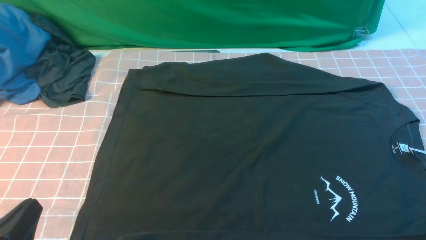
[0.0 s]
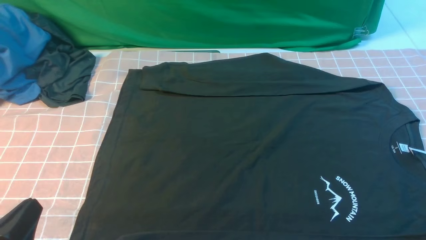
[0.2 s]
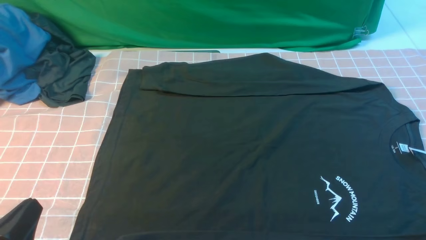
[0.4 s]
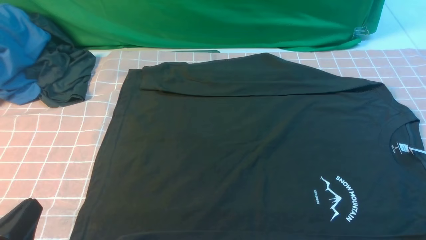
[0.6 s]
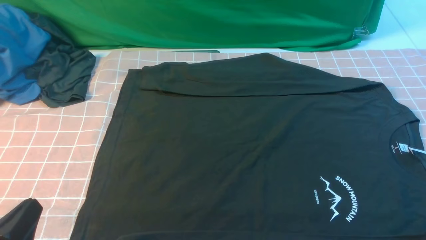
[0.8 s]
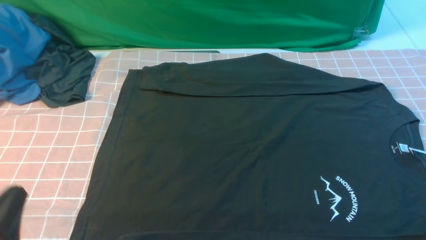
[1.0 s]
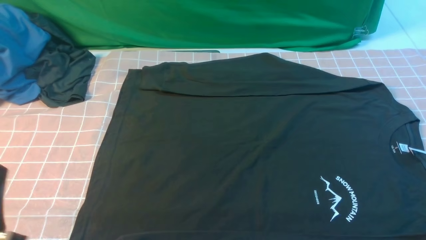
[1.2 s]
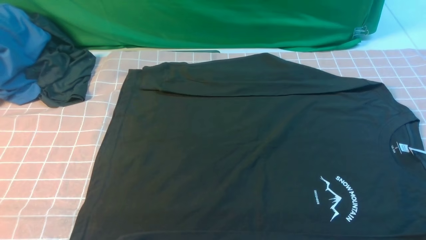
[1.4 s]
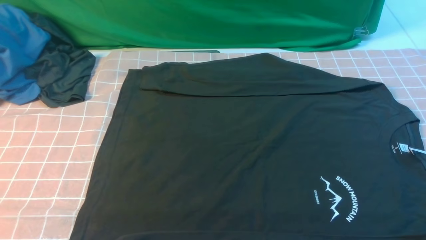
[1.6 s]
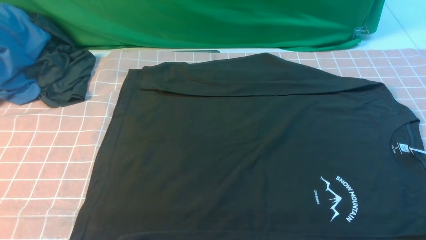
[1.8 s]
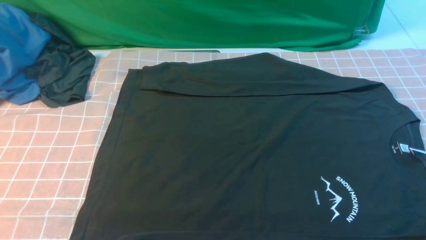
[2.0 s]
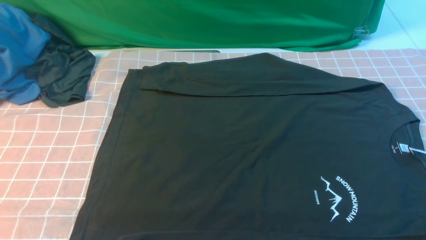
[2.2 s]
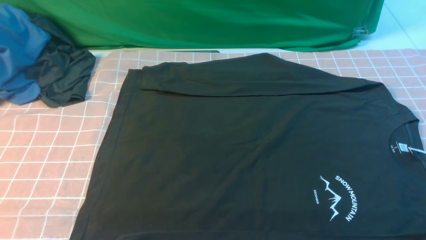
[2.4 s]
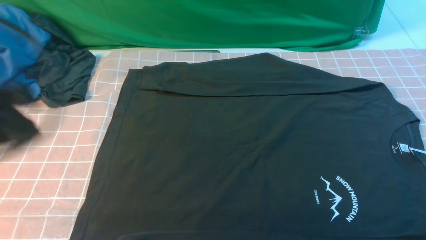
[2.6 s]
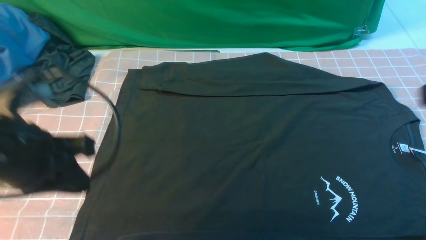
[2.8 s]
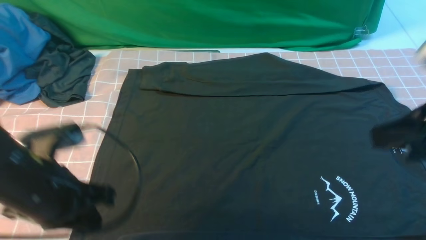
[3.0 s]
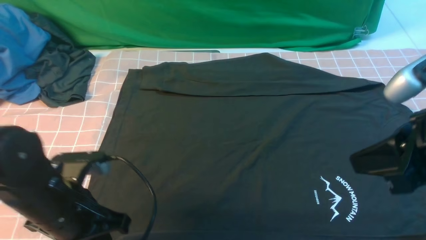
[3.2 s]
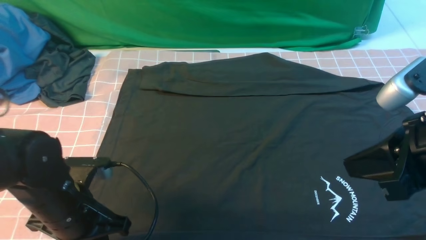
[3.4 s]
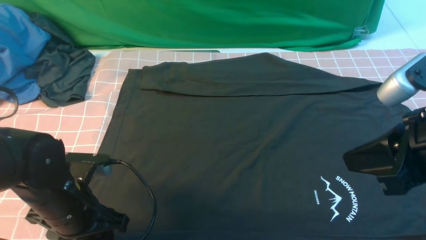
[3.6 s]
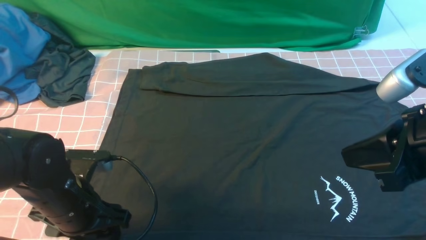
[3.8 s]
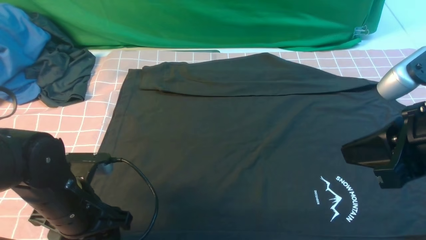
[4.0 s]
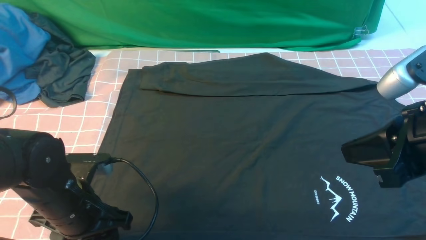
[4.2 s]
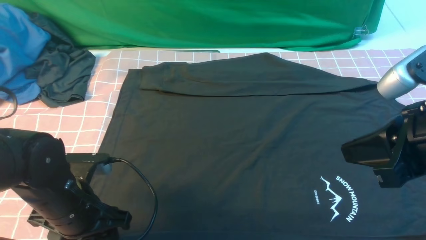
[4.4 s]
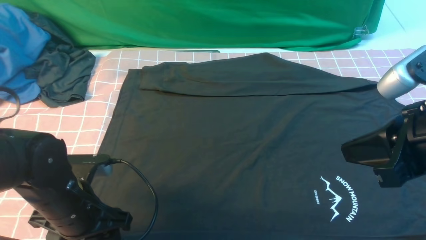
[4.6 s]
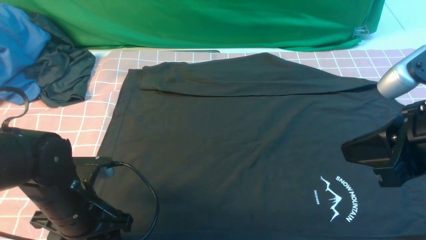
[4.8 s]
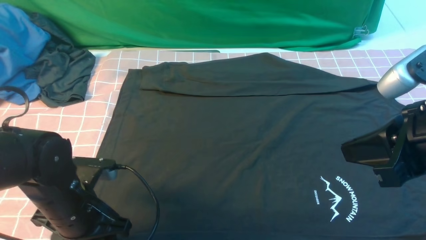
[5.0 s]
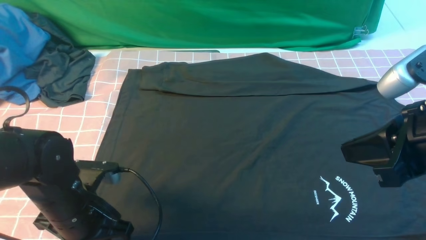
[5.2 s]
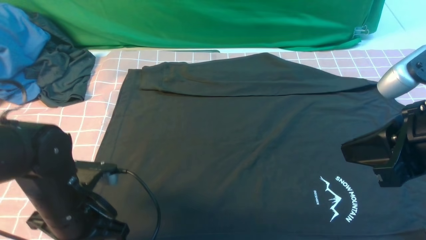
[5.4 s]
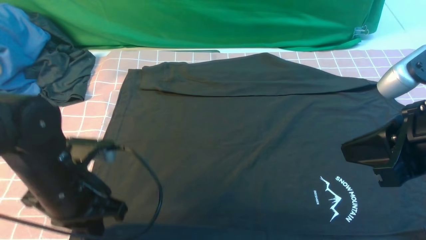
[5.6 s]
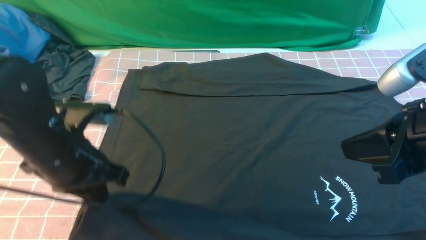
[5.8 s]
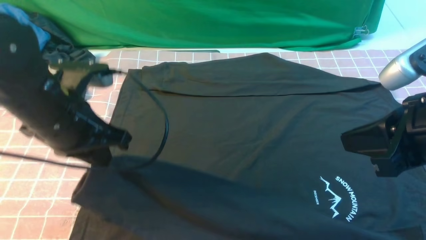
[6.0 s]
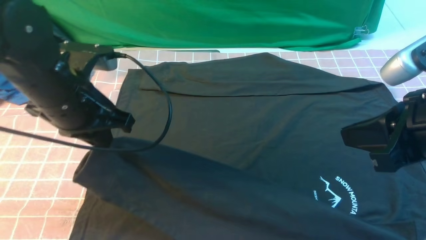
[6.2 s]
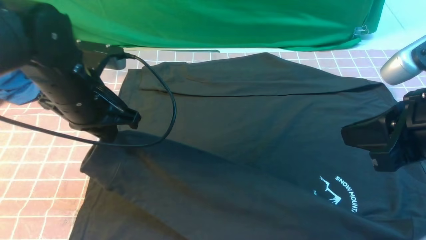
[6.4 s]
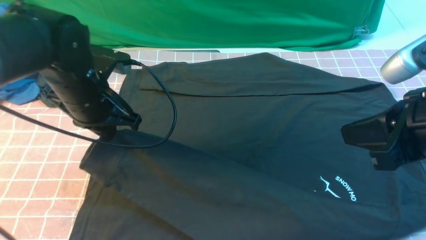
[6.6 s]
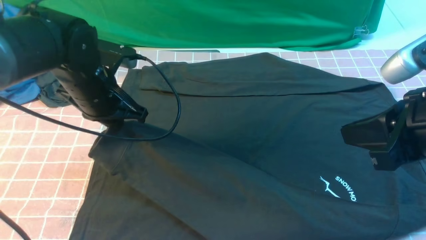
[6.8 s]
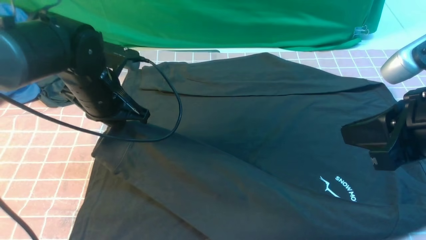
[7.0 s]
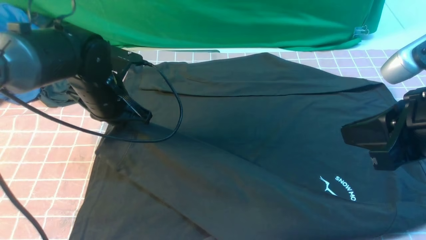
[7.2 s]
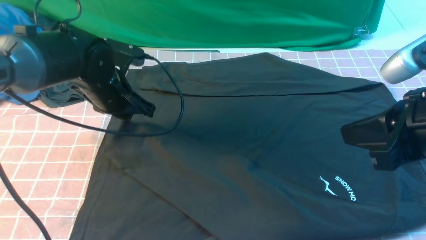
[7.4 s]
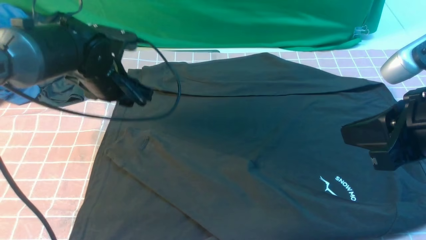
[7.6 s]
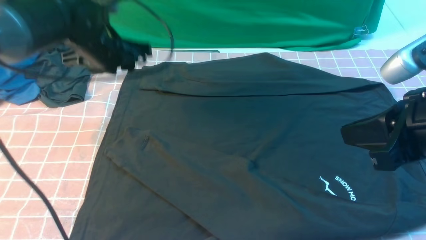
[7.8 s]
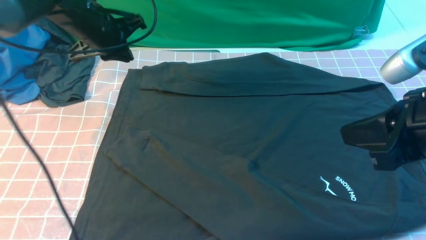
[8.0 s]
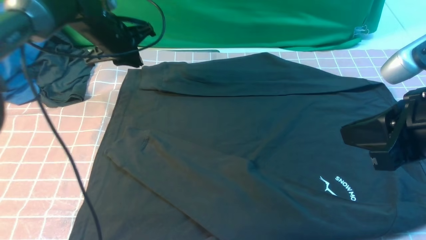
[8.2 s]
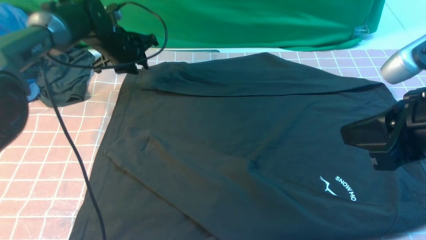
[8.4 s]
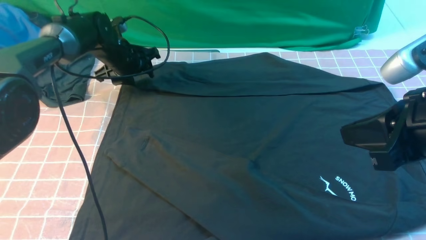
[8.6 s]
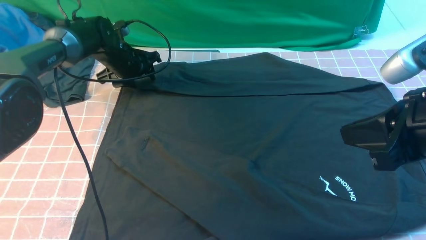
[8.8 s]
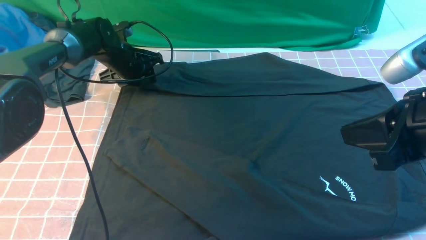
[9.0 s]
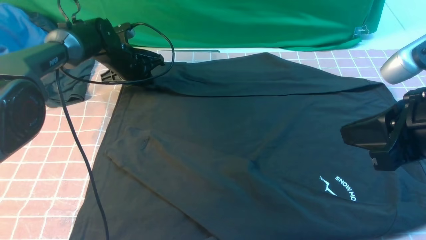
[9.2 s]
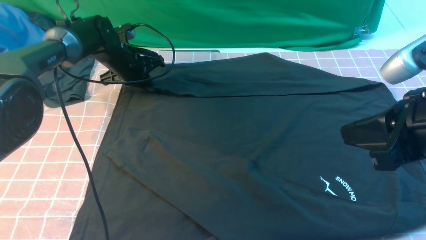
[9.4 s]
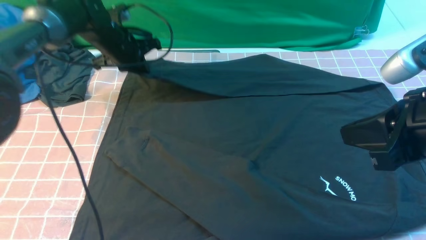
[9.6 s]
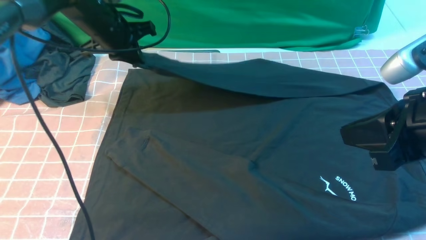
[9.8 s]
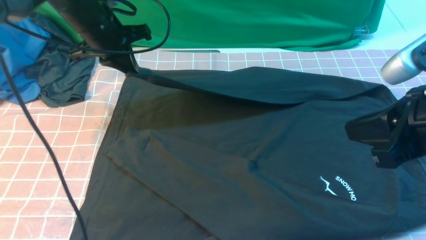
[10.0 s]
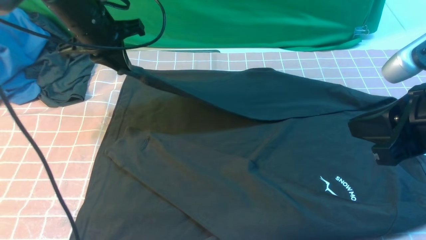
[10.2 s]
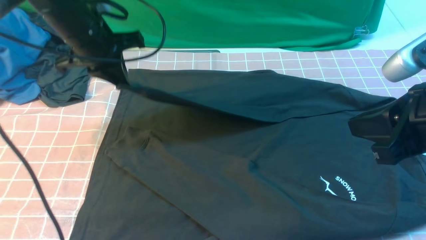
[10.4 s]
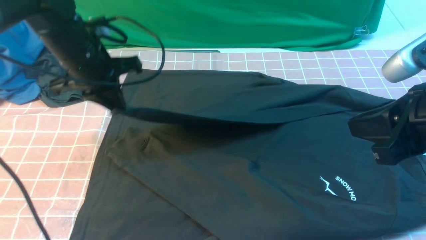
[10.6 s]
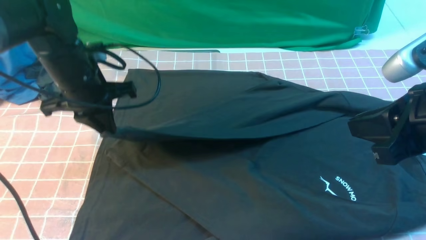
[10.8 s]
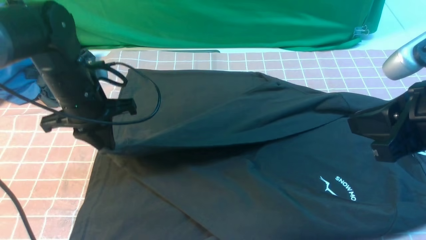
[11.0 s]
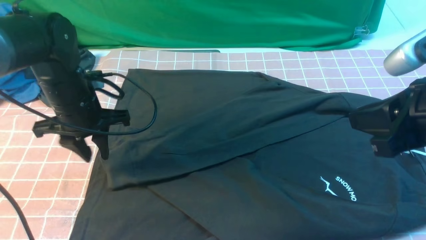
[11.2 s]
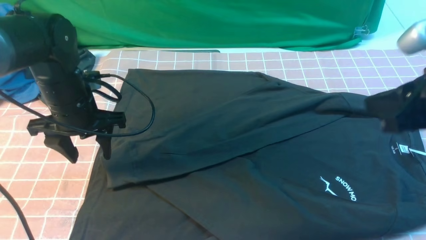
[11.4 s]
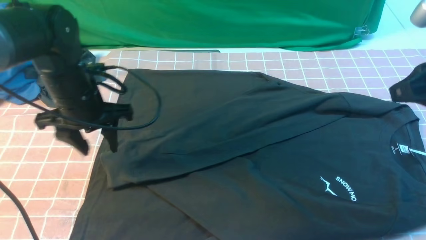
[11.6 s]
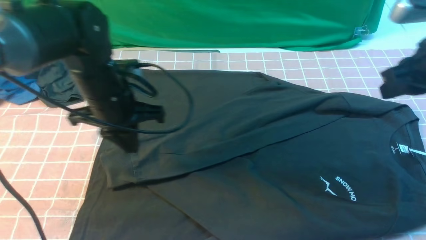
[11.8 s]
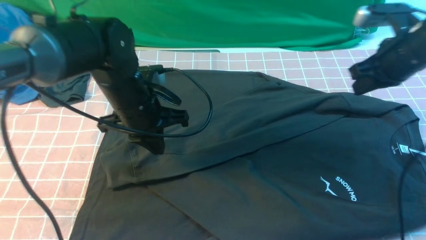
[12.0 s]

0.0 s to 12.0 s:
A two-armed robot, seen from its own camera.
Step, 0.0 to 5.6 s: use the left arm to clamp the cuff closest to it.
Step, 5.8 to 7.6 s: use the left arm to drag and place the cuff at the centered position on the left edge of the fabric.
Step, 7.8 to 11.4 s: use the left arm to drag and drop the cuff onto the cuff closest to the left arm.
0.0 to 1.6 s: The left gripper is displaced upward by about 5 cm.
1.6 to 3.0 s: The left gripper travels forward by approximately 15 cm. Meanwhile the right gripper goes approximately 20 cm upward, forward and to the left, and closes its fingers.
3.0 to 4.4 s: The left gripper is displaced downward by approximately 5 cm, and opens up.
4.4 to 6.0 s: The left gripper moves upward and forward, roughly 15 cm, and closes up.
6.0 to 7.6 s: The left gripper heads forward, covering roughly 15 cm, and opens.
7.6 to 9.0 s: The left gripper goes approximately 15 cm forward and downward, and closes, then opens again.
9.0 to 10.4 s: The left gripper travels upward and backward by approximately 20 cm, and closes up.
10.4 to 12.0 s: The right gripper shifts approximately 20 cm forward, while the left gripper is displaced downward, to the right and backward by approximately 10 cm, and opens, then closes again.

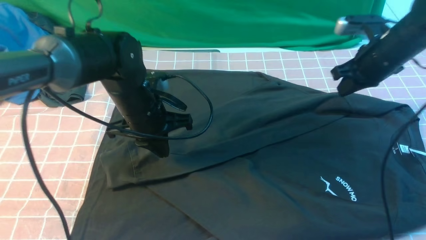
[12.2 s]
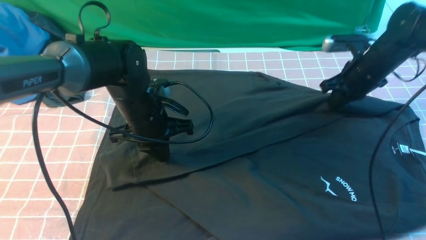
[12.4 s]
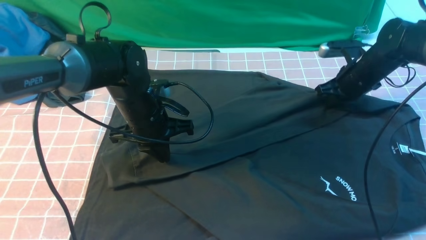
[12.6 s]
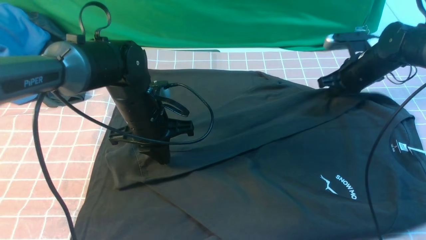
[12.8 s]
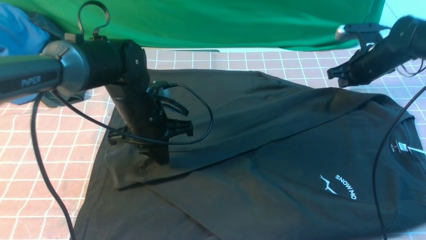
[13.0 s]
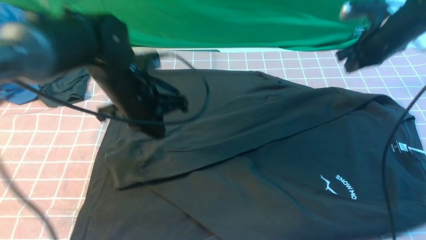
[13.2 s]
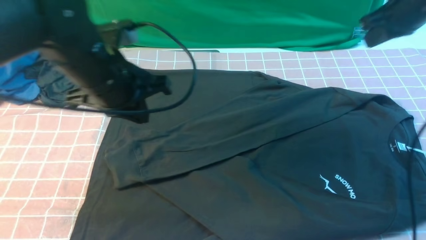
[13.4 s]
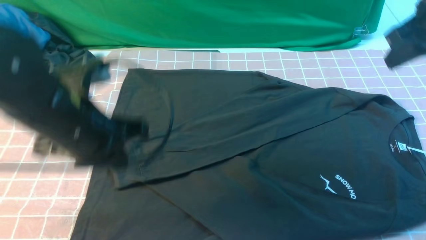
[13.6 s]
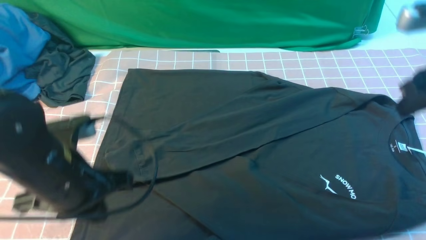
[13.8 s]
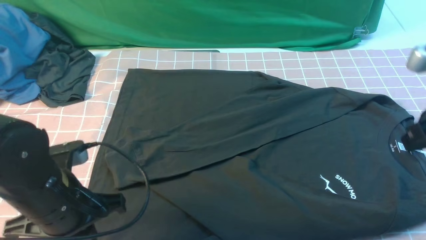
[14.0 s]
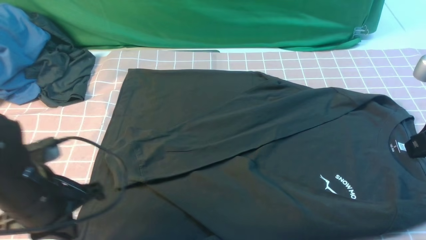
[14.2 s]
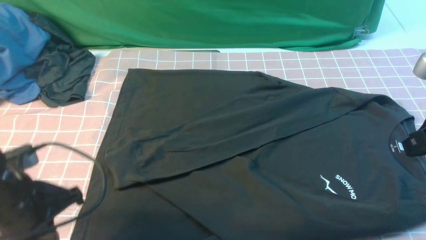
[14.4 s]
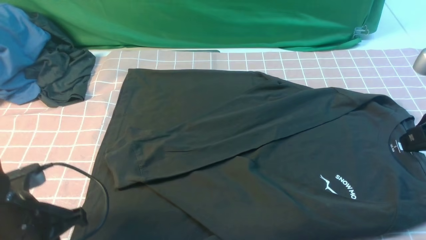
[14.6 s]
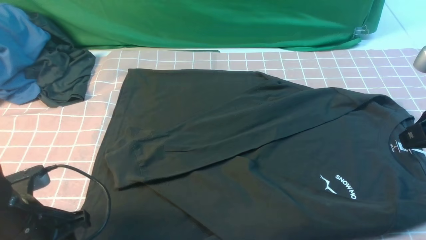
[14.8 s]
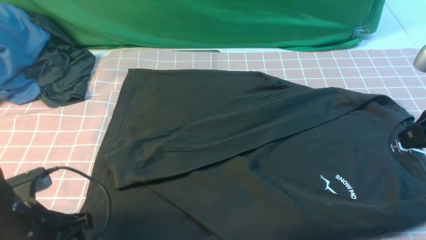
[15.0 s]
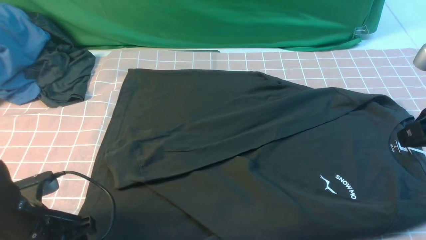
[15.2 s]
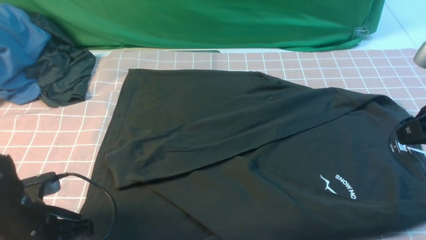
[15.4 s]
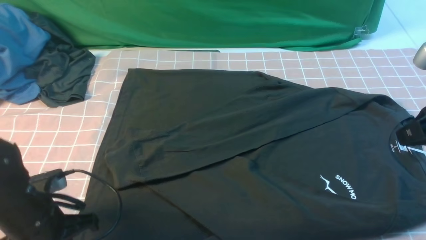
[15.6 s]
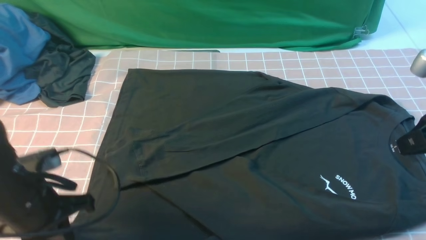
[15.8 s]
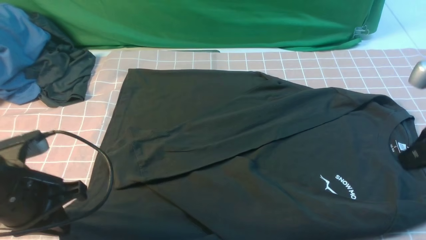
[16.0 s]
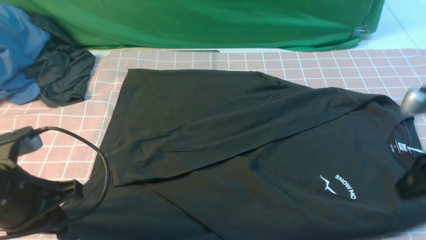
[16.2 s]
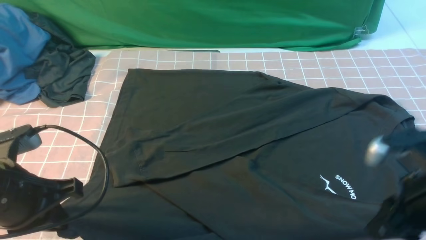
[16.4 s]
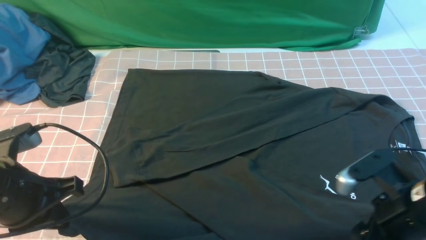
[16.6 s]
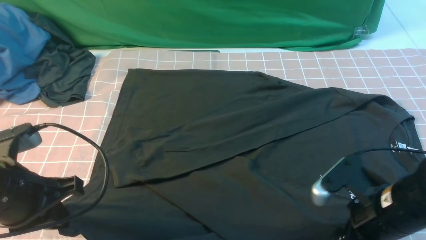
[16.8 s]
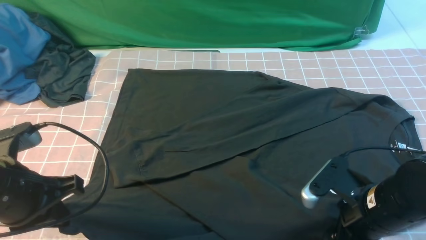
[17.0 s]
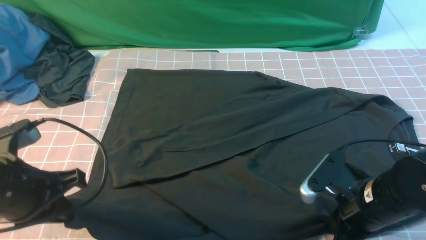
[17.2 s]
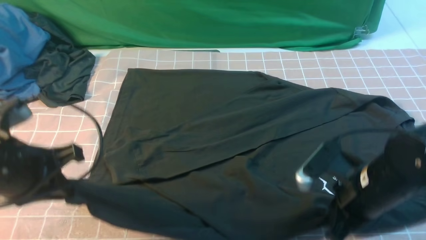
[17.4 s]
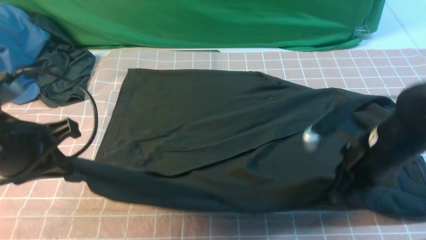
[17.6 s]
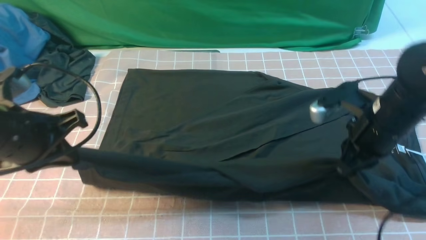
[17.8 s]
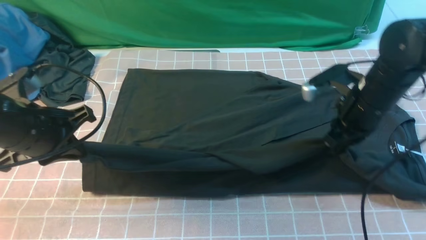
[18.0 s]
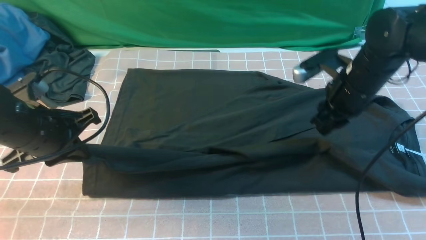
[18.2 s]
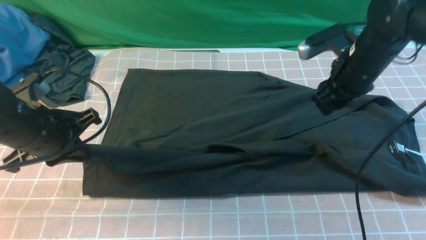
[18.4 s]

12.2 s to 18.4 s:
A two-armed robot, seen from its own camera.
Step, 12.2 to 17.2 s: use both arms simultaneously to clamp the lower edge of the clothing fabric.
12.2 to 13.8 s: The right gripper travels backward and upward by approximately 20 cm; the left gripper shifts approximately 15 cm backward.
13.8 to 15.4 s: The right gripper goes some 5 cm backward. Meanwhile the left gripper heads downward and to the left, covering some 10 cm, and opens up.
15.4 to 16.8 s: The right gripper shifts some 15 cm downward and to the left, and opens up. Meanwhile the left gripper heads upward, covering some 10 cm, and closes its fingers.
16.8 to 18.4 s: The right gripper is displaced forward by approximately 20 cm, and closes and opens again; the left gripper goes approximately 10 cm forward.
